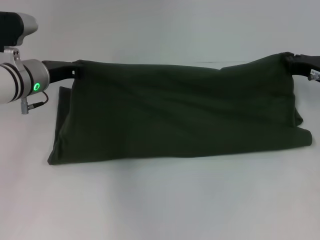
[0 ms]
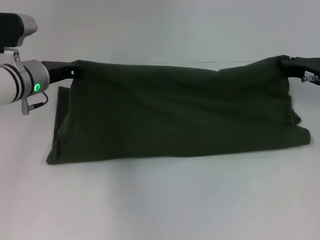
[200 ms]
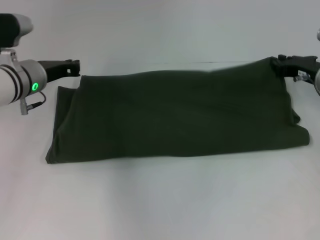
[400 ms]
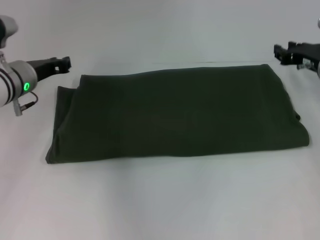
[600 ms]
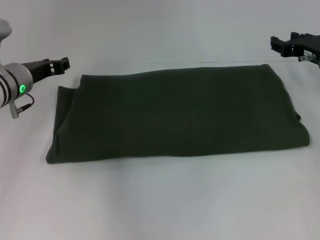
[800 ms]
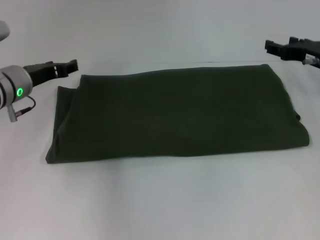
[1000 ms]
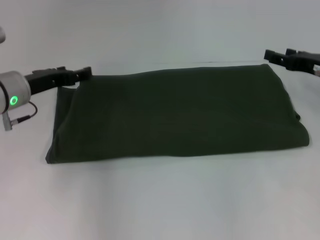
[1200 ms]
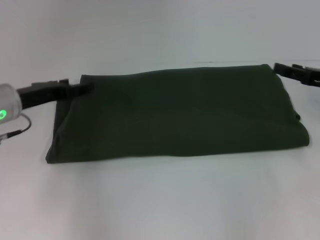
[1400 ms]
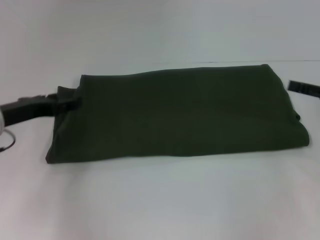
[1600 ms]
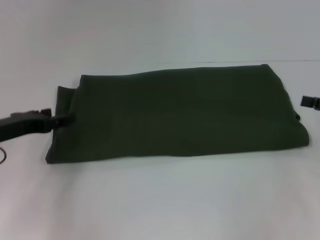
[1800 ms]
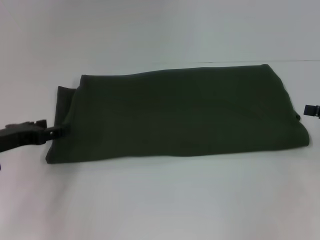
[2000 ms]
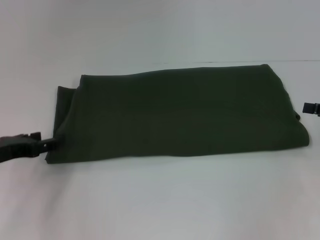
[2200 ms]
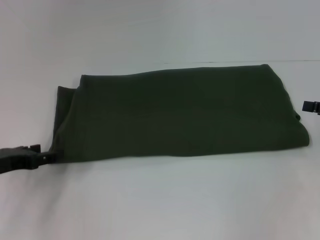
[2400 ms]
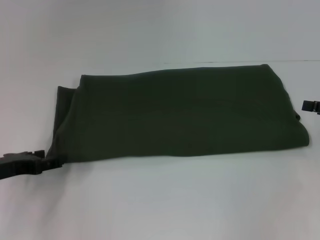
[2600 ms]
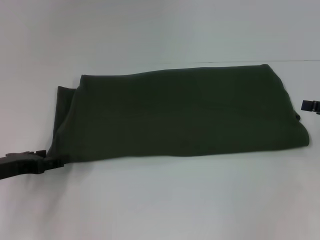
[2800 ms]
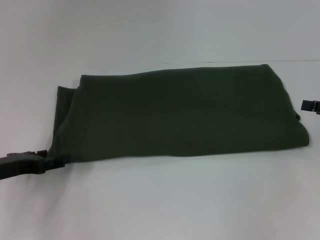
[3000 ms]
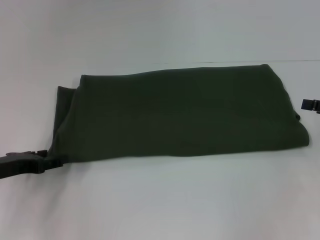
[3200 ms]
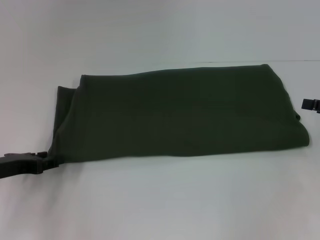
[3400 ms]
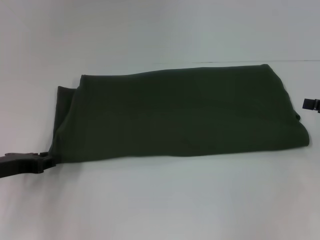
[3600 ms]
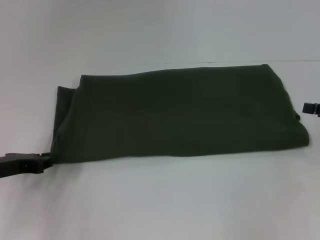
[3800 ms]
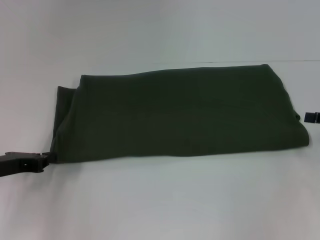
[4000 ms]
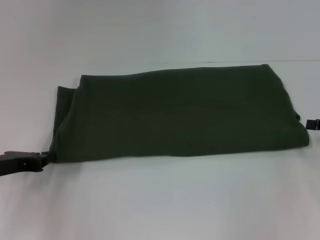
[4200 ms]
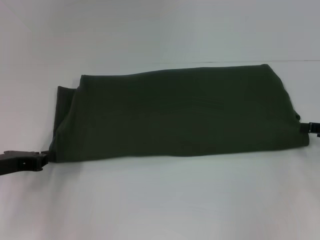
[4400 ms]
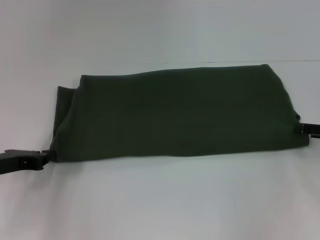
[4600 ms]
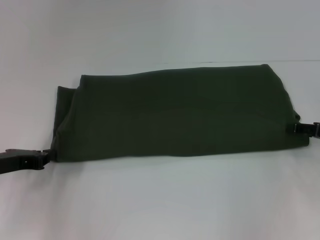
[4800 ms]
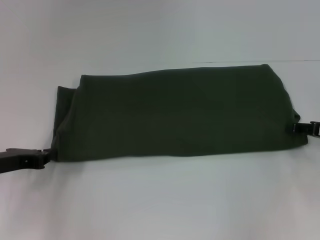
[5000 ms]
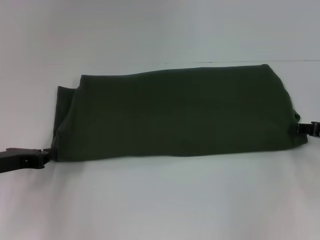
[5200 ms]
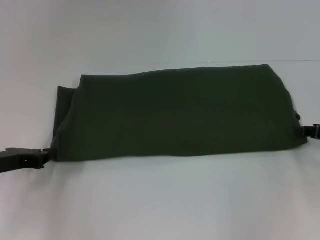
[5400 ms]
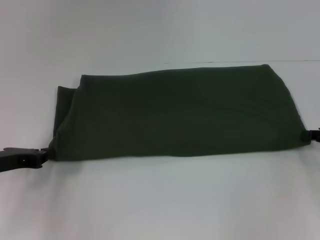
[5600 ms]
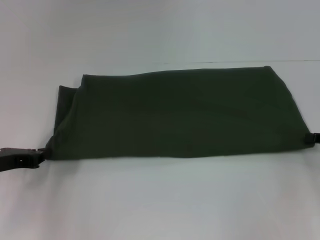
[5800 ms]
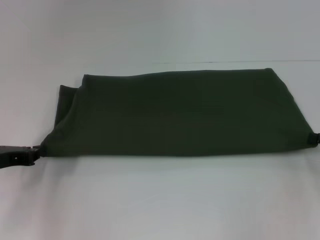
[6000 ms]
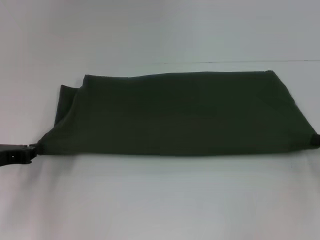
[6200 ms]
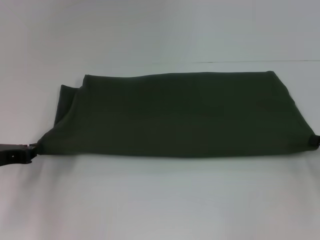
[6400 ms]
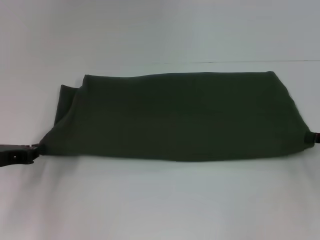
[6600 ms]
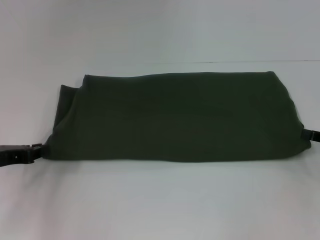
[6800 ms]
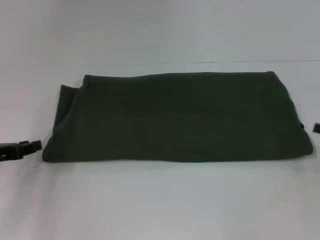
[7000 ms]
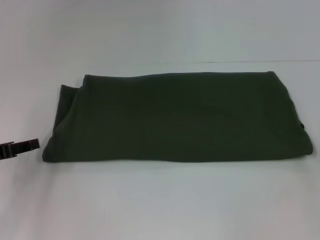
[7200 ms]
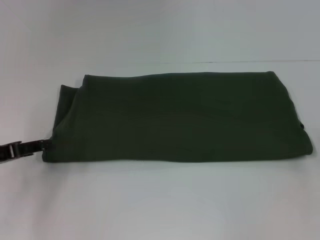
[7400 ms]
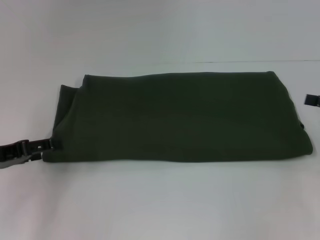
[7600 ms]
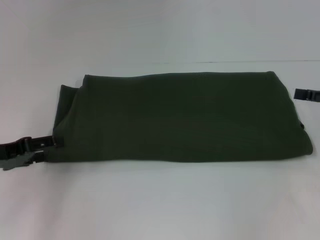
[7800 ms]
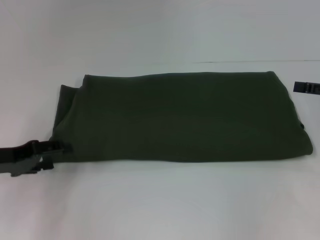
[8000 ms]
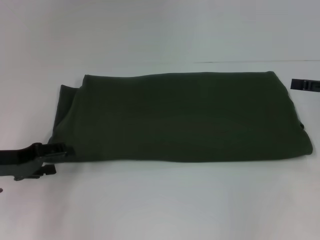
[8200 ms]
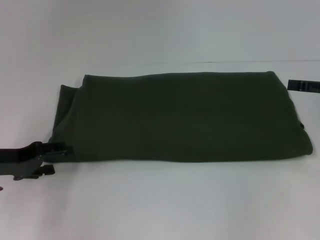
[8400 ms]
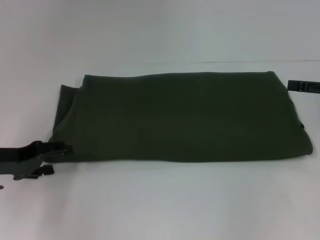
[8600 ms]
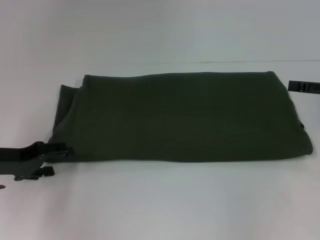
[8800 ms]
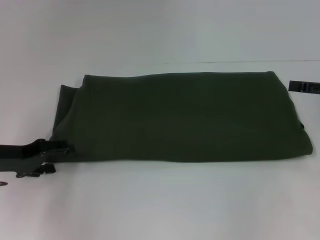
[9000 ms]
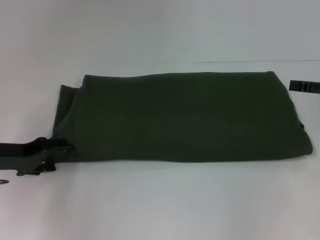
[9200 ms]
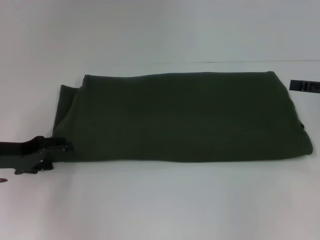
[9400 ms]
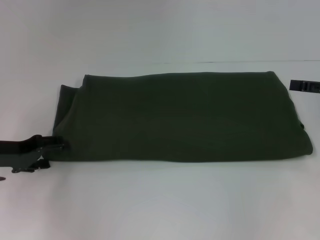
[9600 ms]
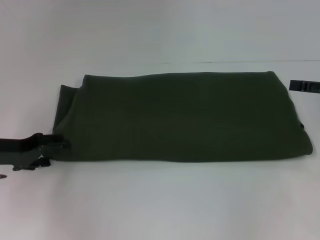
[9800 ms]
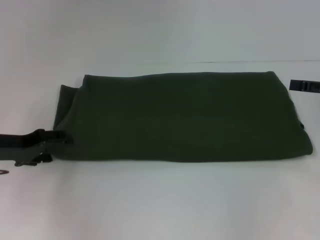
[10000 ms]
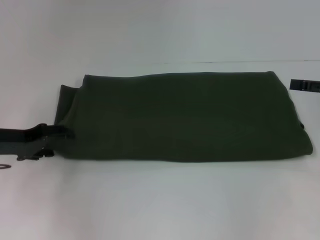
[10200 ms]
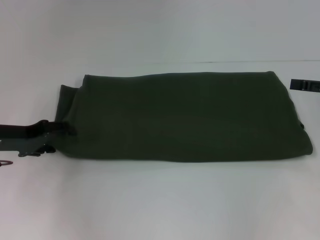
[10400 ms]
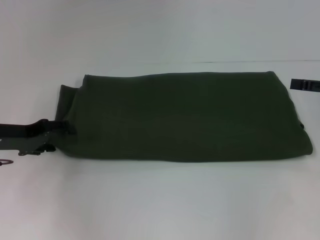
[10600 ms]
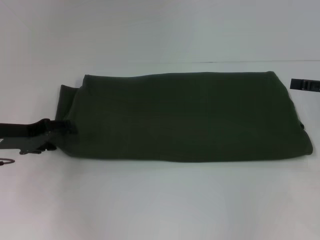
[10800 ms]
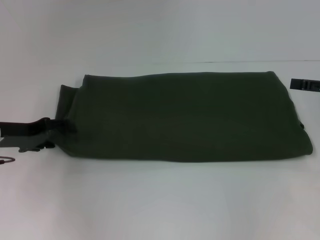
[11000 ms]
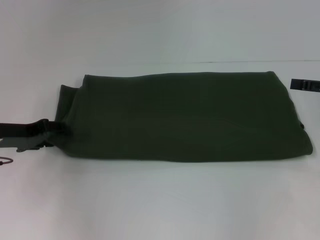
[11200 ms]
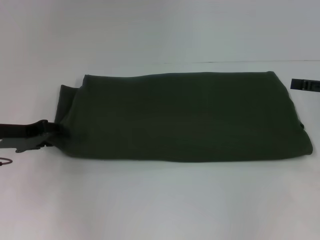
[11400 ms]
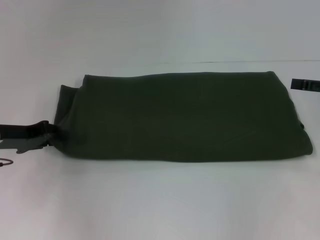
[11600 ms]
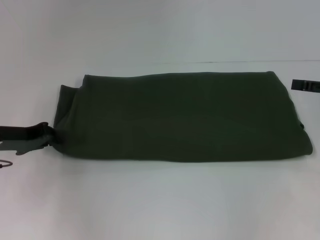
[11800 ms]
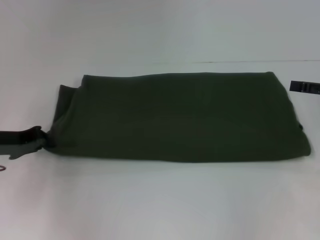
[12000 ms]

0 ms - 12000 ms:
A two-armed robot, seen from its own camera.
0 ms - 1600 ms: The right gripper shifts approximately 10 cm backward and to the right, and opens its fingers, while the left gripper goes some 10 cm backward and to the left, and opens up.
1600 ms - 3000 ms: The left gripper heads backward, covering about 5 cm.
3000 ms - 4400 ms: The left gripper closes up.
4400 ms - 6000 ms: The right gripper closes its fingers.
6000 ms - 7600 ms: The left gripper opens. The right gripper heads upward, covering some 5 cm, and opens.
7600 ms - 10400 ms: There are only small adjustments of the grippers.
10400 ms - 12000 ms: The left gripper closes up.

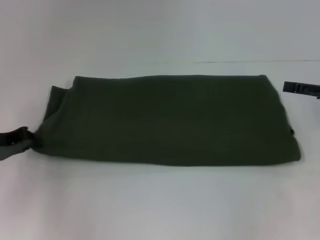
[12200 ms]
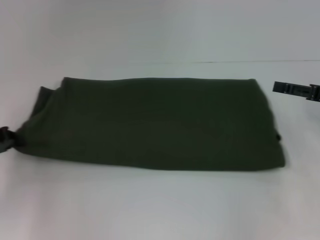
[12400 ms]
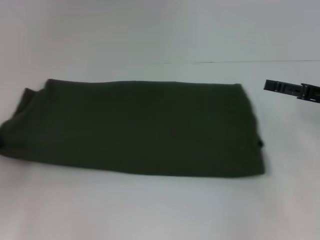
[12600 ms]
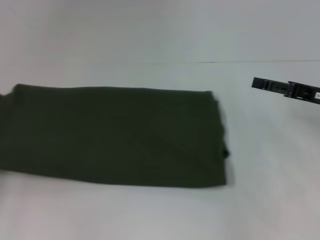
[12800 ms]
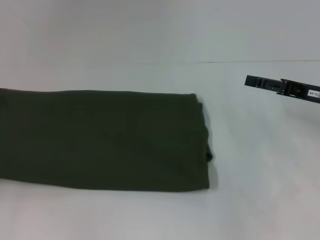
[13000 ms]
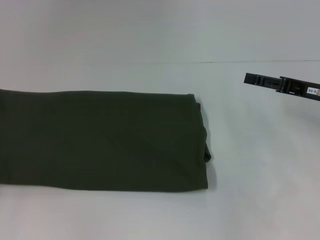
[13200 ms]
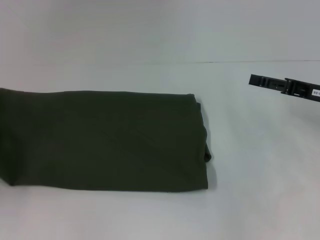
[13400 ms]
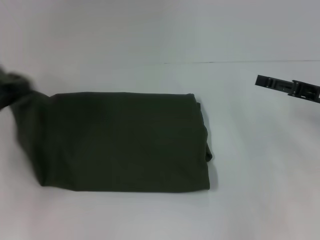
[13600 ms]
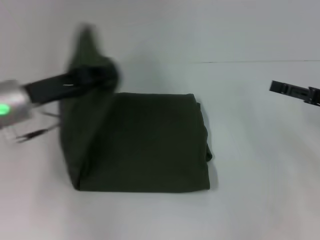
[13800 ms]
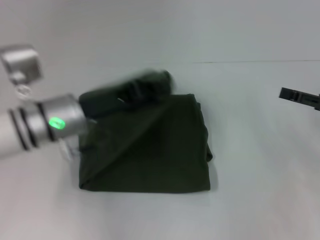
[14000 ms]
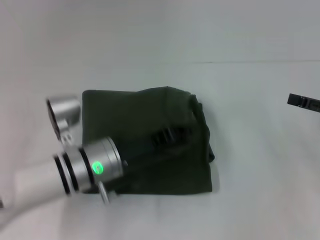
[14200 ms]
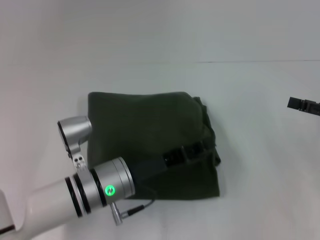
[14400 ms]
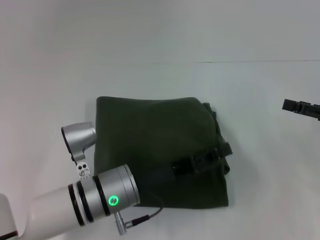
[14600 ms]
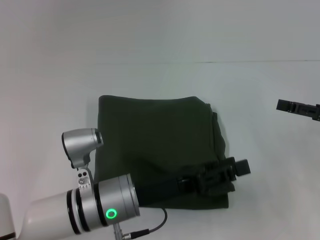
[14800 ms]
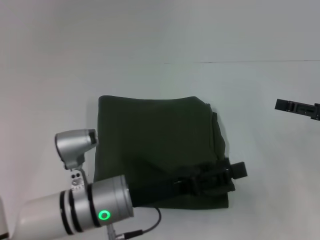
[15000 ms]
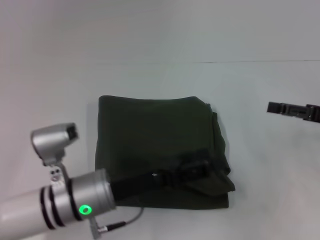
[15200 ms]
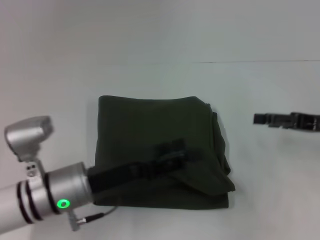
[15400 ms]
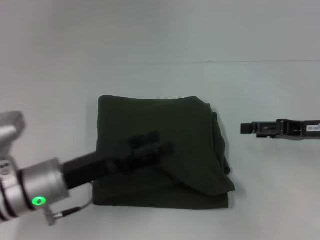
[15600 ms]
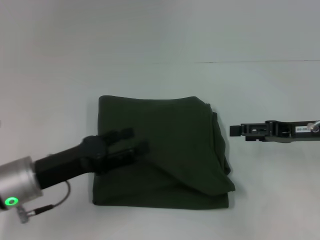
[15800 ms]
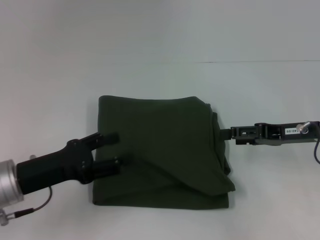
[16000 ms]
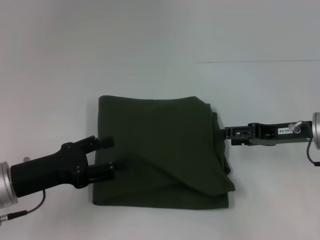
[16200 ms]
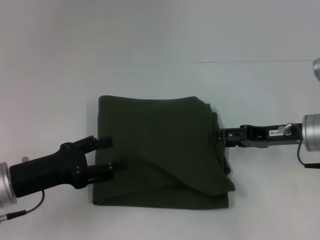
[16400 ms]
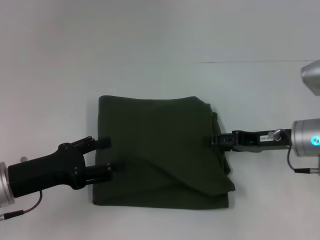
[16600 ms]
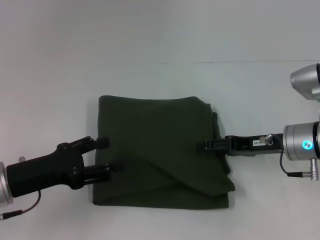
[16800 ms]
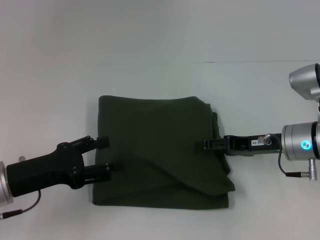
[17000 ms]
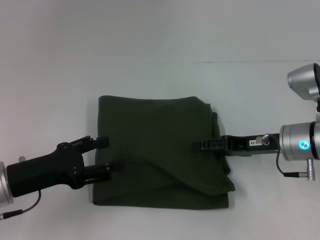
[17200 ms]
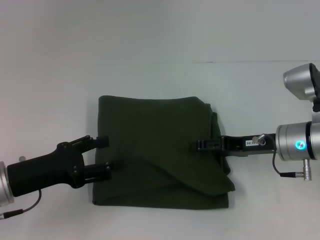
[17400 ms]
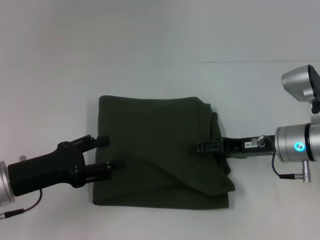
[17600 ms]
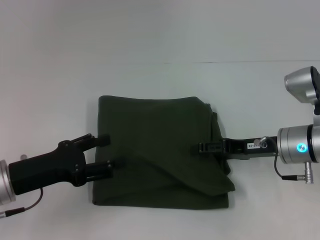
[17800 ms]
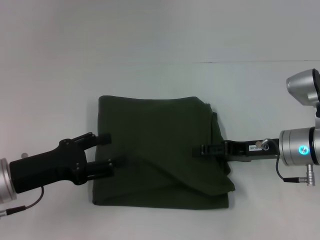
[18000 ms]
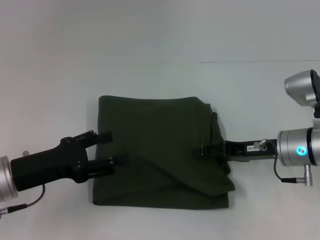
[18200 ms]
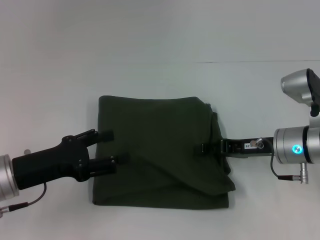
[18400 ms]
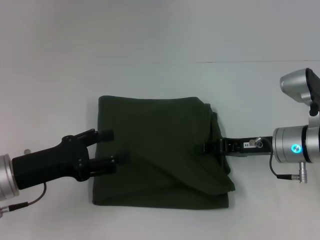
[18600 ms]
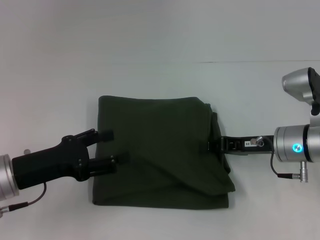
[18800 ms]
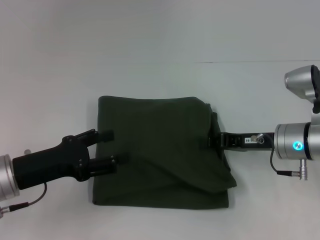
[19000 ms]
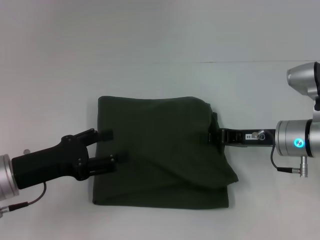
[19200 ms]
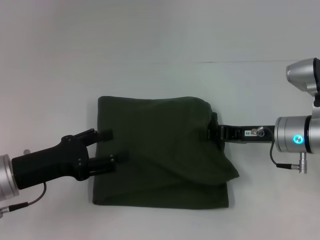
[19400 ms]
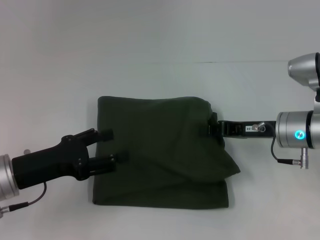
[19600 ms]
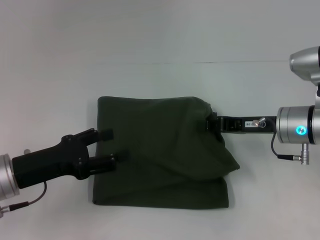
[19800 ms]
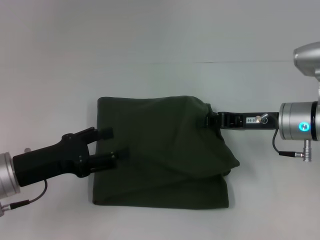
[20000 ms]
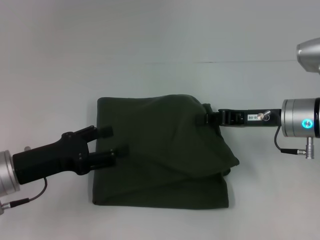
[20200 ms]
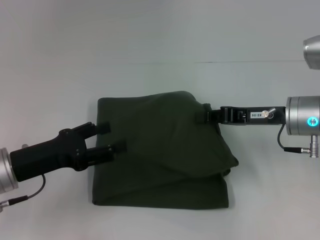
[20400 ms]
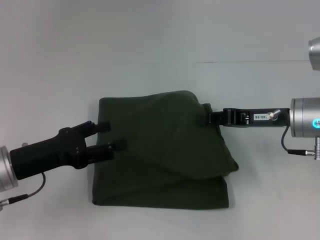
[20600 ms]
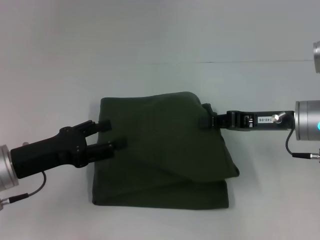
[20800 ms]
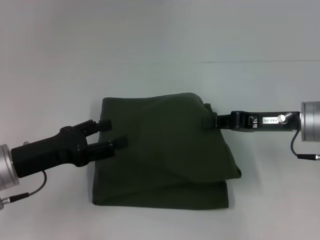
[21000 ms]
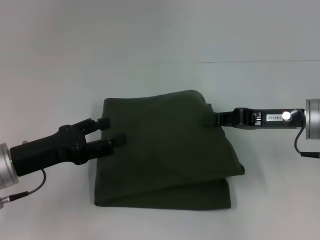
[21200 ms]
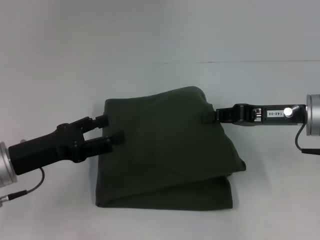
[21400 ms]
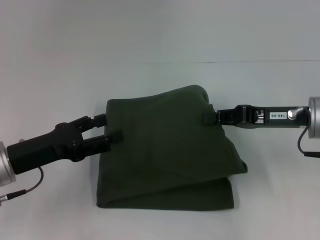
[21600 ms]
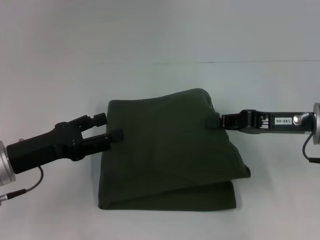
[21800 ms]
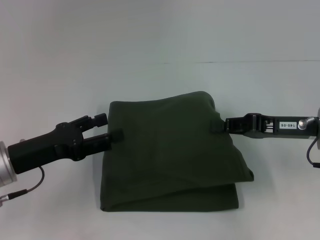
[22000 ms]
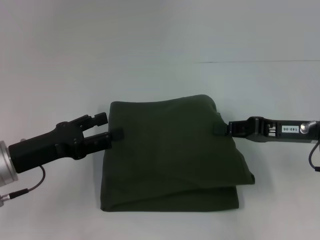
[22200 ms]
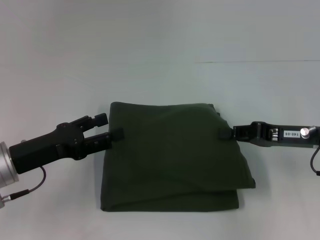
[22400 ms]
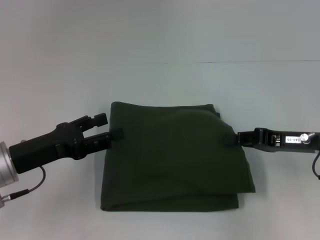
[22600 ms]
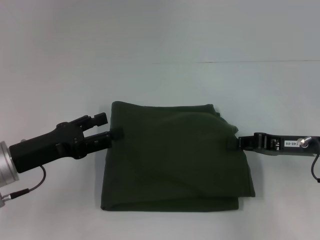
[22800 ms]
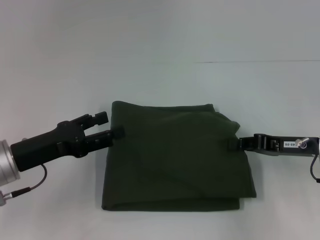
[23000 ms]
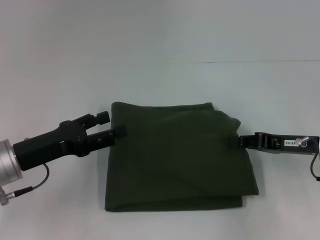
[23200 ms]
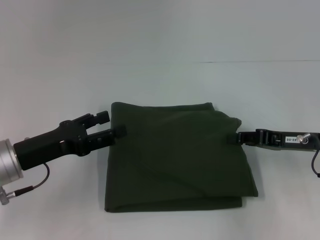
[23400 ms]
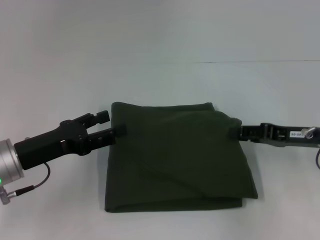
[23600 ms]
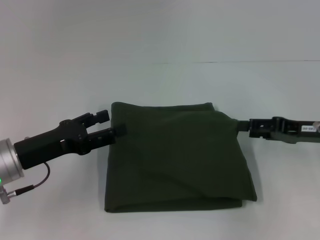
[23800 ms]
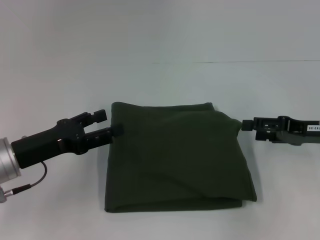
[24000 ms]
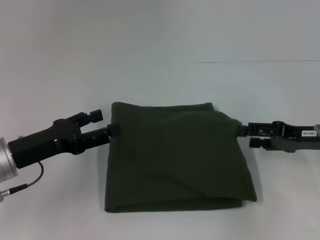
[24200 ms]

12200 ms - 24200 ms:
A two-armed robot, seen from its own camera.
Step, 12200 ms - 17800 ms: Fold the clothes with your left hand.
12200 ms - 13800 ms: The left gripper travels to the right and upward by some 10 cm.
13800 ms - 15200 ms: The left gripper travels to the right, downward and backward by about 15 cm, and opens up.
15200 ms - 16600 ms: The grippers both shift to the left by some 10 cm.
16600 ms - 18200 ms: The grippers move only a little.
18200 ms - 19800 ms: The right gripper closes its fingers.
19800 ms - 21200 ms: There are only small adjustments of the grippers.
21200 ms - 22600 ms: There are only small adjustments of the grippers.
22600 ms - 24200 ms: The right gripper opens its fingers.
